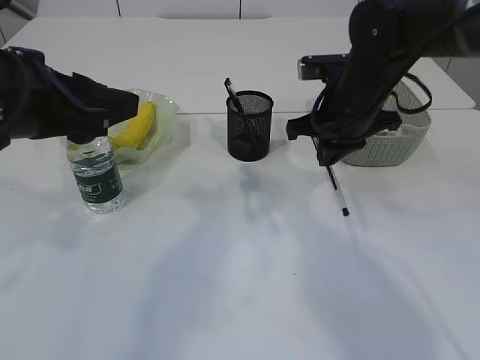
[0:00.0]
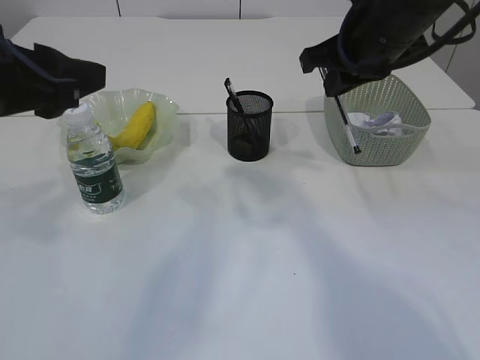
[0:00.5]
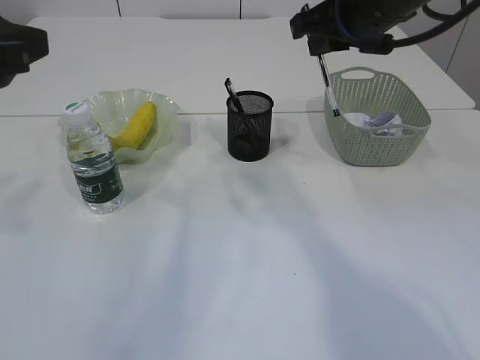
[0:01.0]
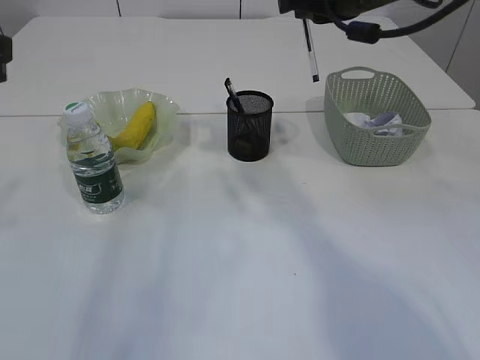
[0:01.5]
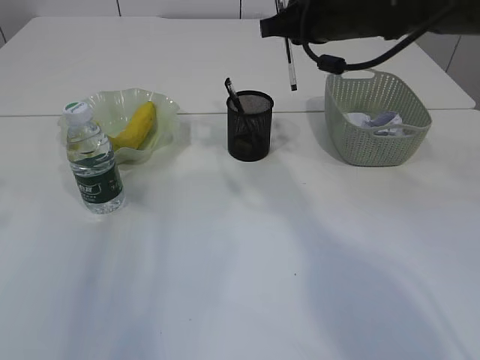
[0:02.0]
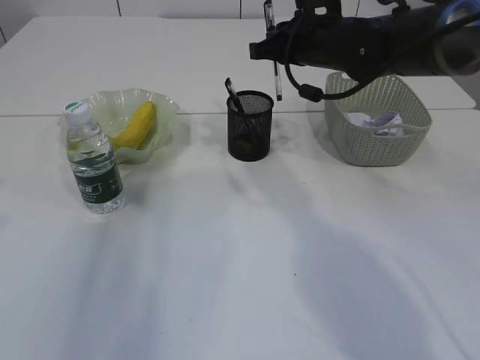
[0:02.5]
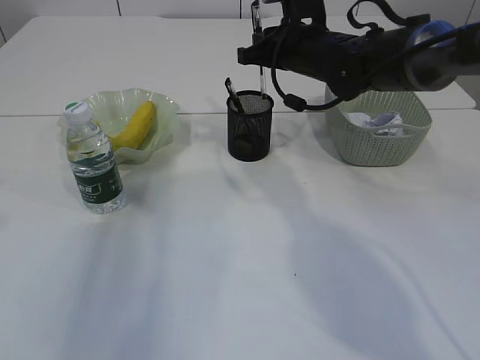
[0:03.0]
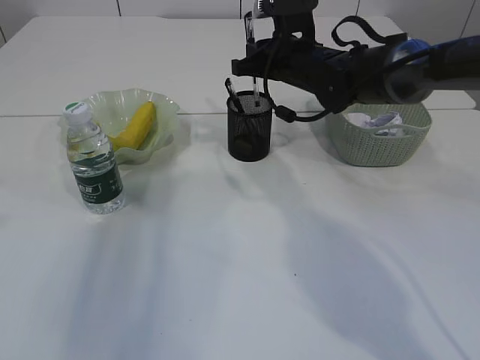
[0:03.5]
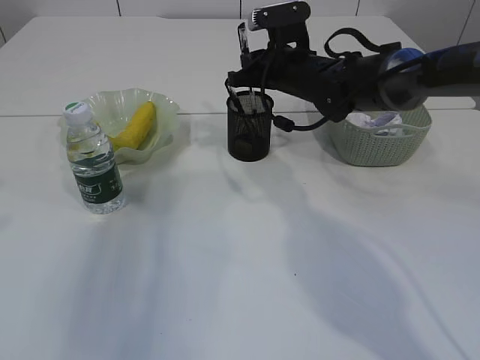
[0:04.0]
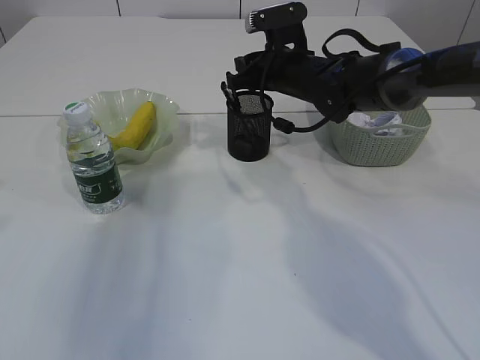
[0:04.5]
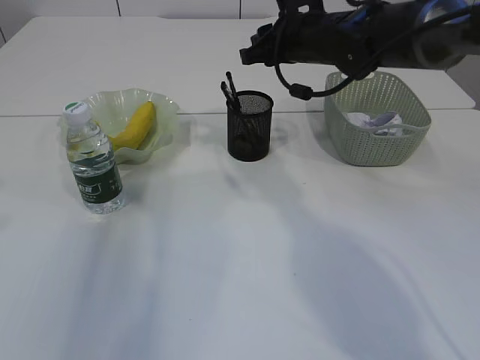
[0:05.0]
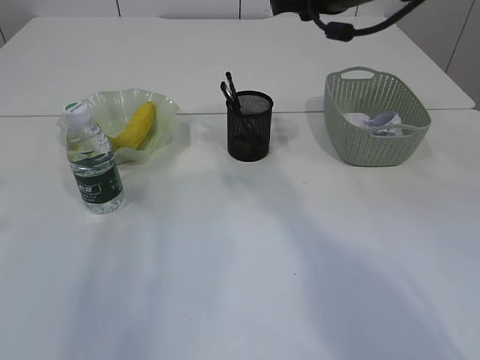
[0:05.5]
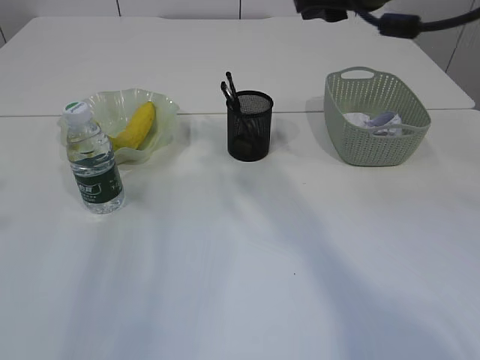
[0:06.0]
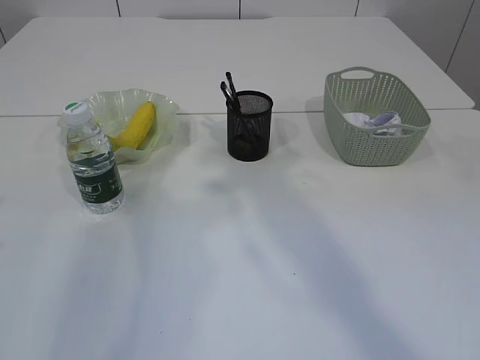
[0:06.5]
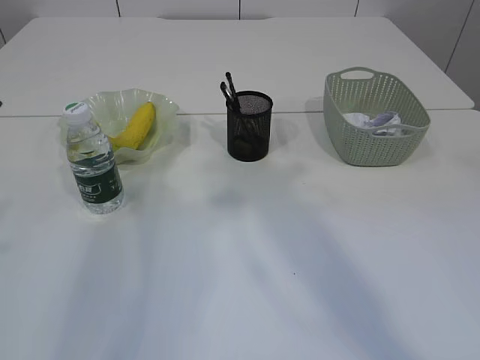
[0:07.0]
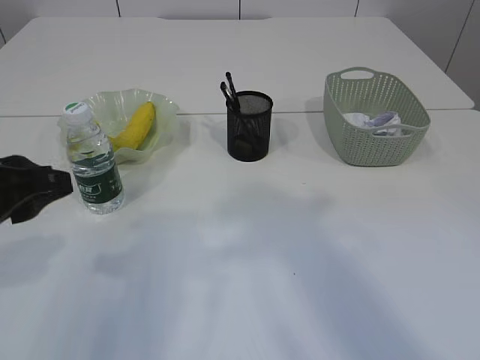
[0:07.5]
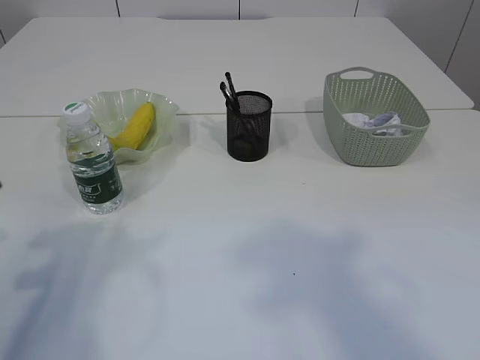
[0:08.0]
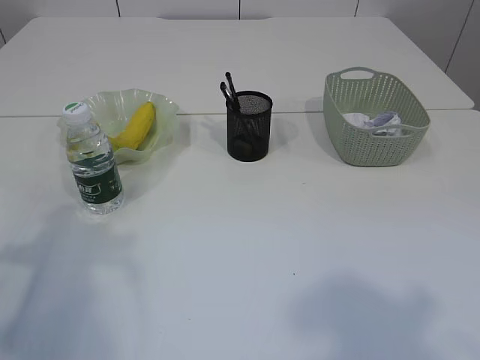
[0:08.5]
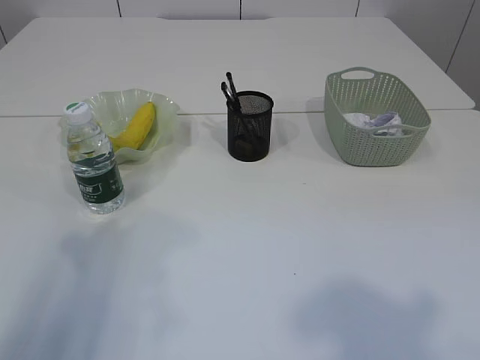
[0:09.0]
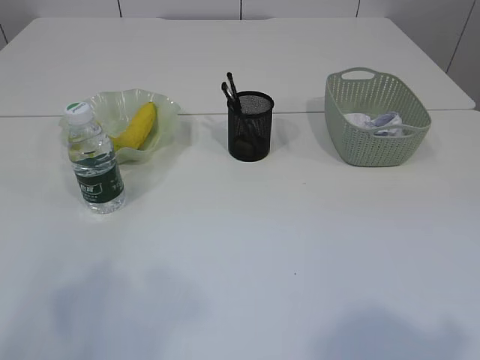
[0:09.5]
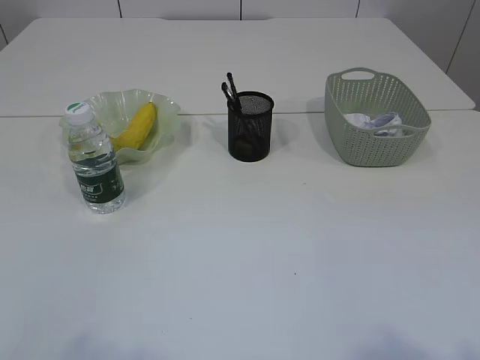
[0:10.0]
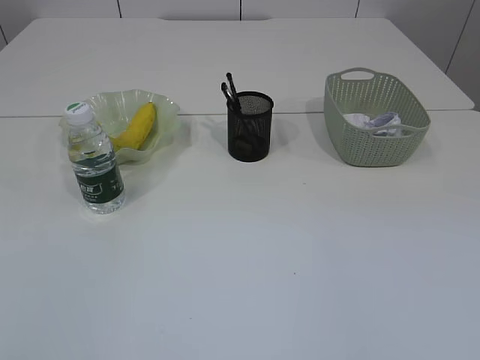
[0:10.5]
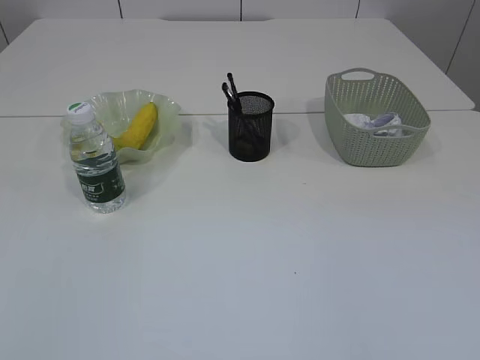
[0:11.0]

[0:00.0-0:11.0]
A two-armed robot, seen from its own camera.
Step, 0:00.0 to 0:05.0: Place the pen into the pen holder.
0:00.0 to 0:02.0: The right gripper moves upward, some 10 cm; the left gripper heads to the left, covering some 5 cm.
0:02.0 to 0:03.5: The right gripper shifts approximately 10 cm downward and forward.
0:03.5 to 0:05.5: The right gripper heads upward and backward, covering about 15 cm, and opens up.
0:05.5 to 0:07.5: The left gripper shifts some 10 cm downward. Meanwhile the right gripper heads backward and upward, covering approximately 30 cm.
0:07.5 to 0:09.0: The left gripper is displaced to the left and upward by approximately 10 cm.
0:09.0 to 0:11.0: The left gripper goes about 20 cm backward.

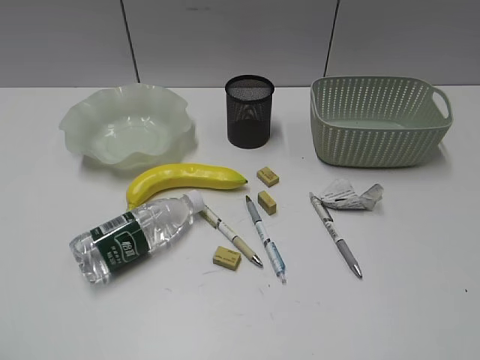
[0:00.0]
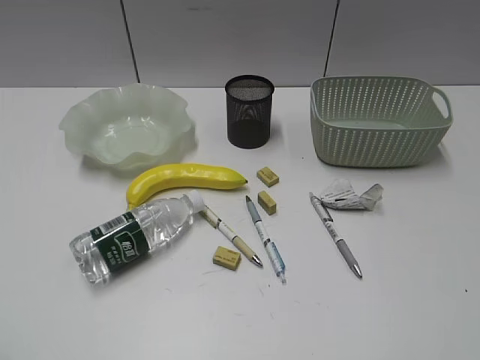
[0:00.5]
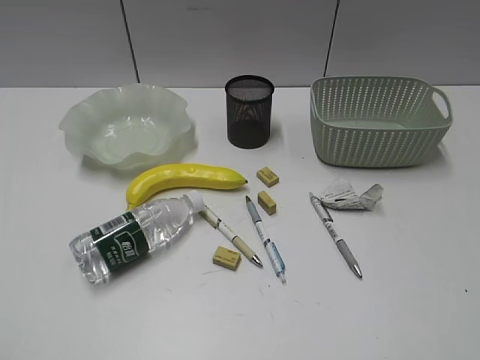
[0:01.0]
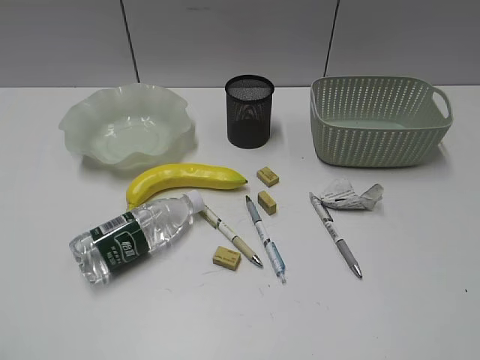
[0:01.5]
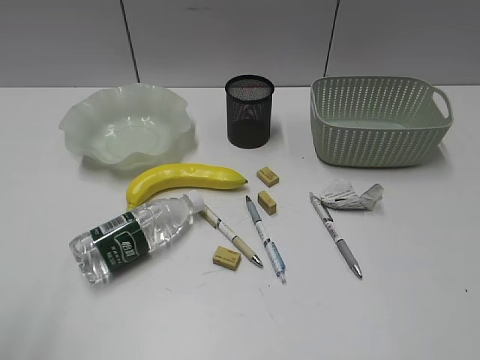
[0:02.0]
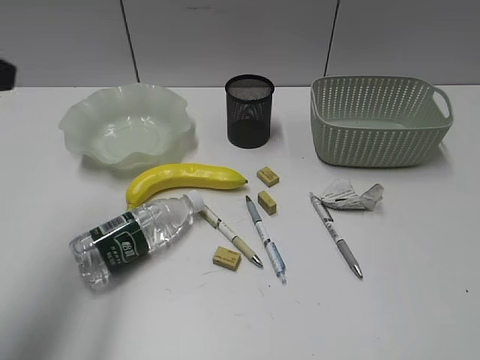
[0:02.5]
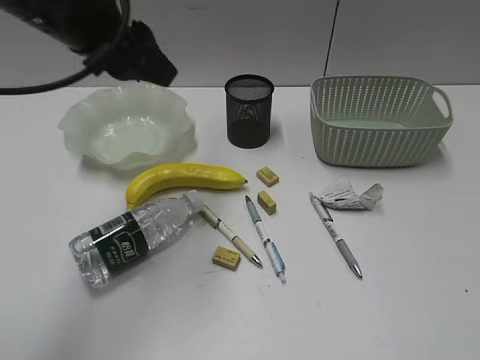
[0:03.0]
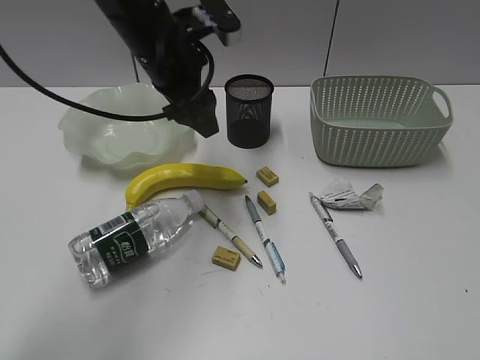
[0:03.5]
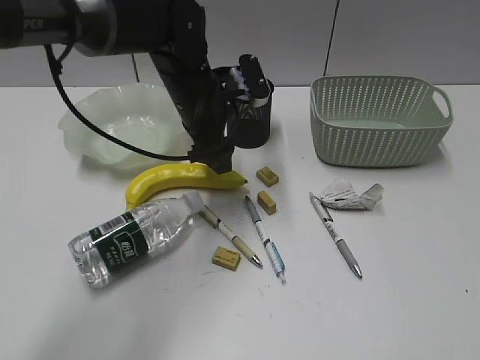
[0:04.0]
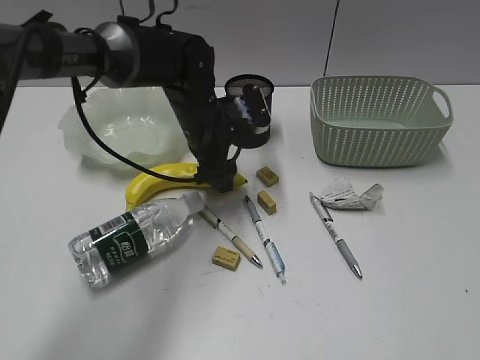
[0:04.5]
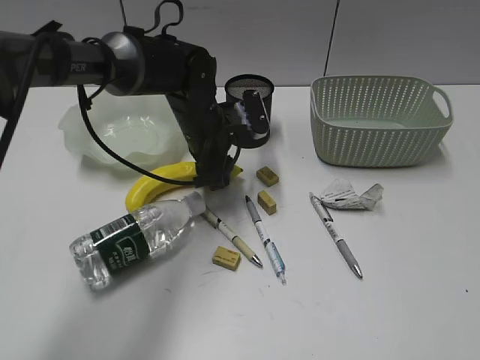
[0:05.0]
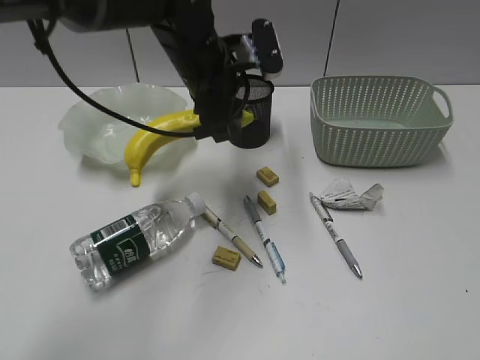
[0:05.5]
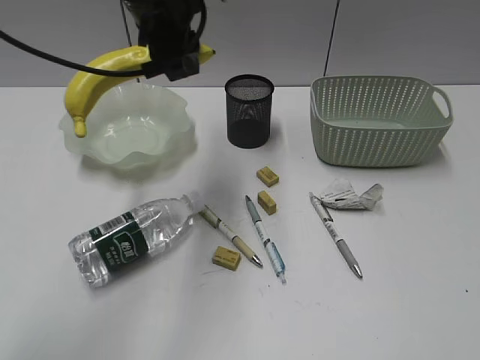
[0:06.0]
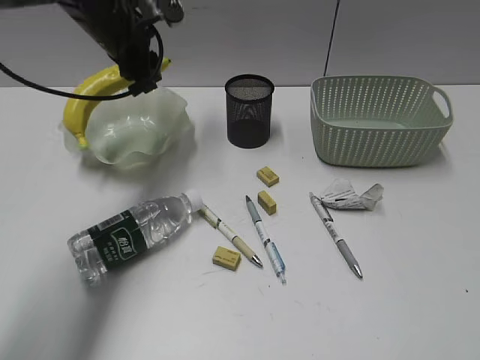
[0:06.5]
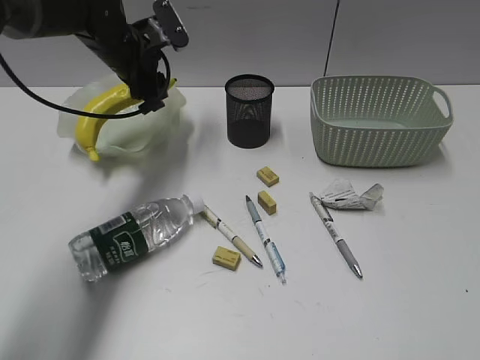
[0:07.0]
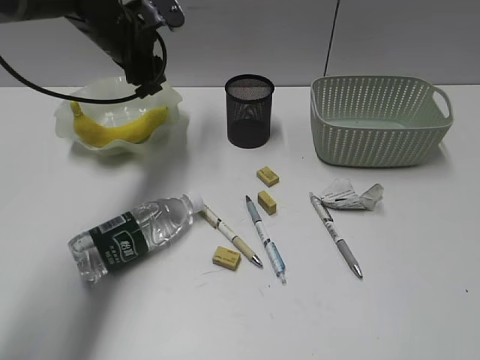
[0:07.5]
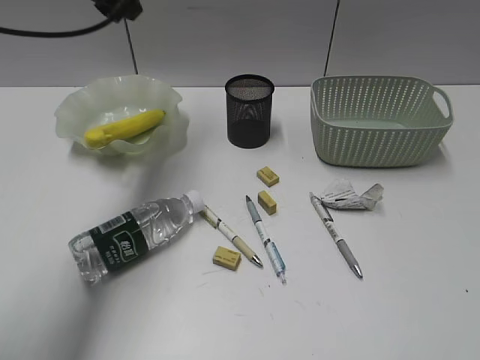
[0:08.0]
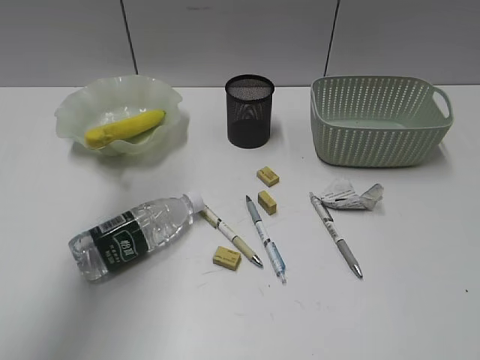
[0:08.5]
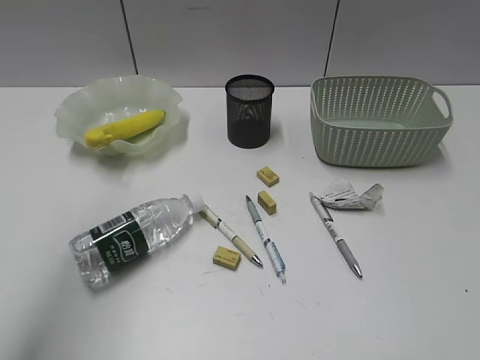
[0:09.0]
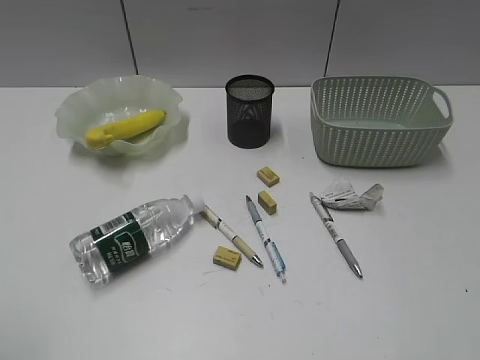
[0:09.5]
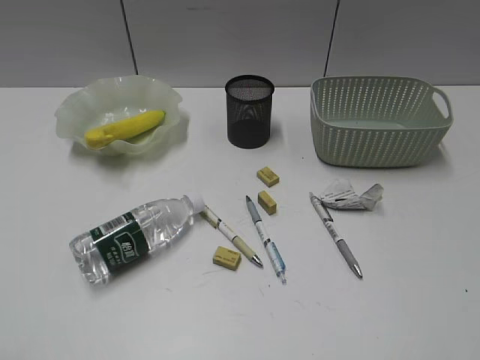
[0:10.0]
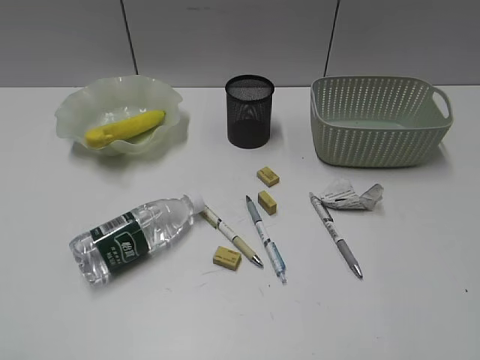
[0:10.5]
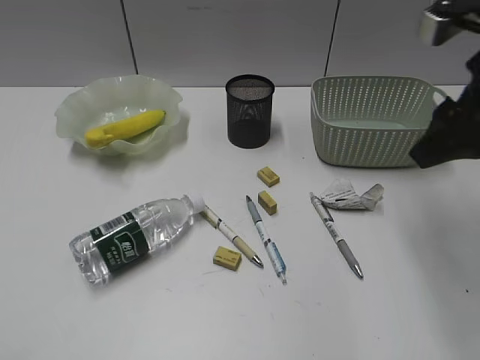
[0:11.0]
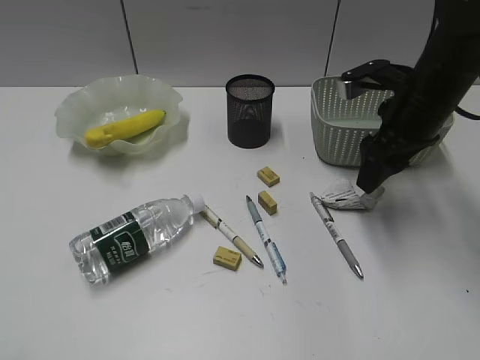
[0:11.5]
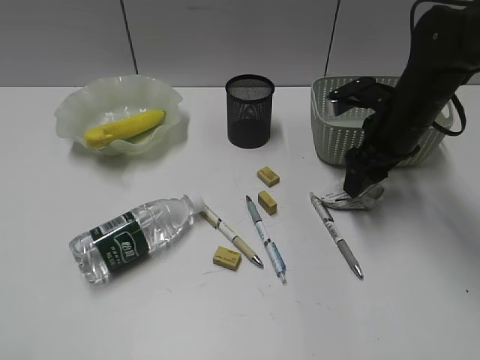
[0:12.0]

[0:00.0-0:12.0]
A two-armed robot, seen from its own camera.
Step, 0:02.0 to 0:05.0: Grasp the banana with left gripper.
Step, 0:05.5 to 0:07.0: Place the banana in the plate with left gripper.
0:02.0 to 0:04.0: The left gripper shifts about 40 cm forward and to the right, and opens its fingers.
0:04.0 to 0:06.0: The left gripper travels upward by about 15 cm, and closes its fingers.
0:06.0 to 0:08.0: The left gripper heads to the left and forward, covering about 10 cm, and travels downward and back again, some 10 cm each way.
0:08.0 to 0:10.0: The left gripper heads backward, covering some 40 cm.
0:10.0 to 0:12.0: The right gripper goes approximately 40 cm forward.

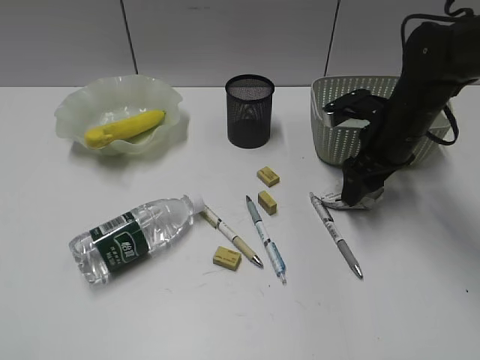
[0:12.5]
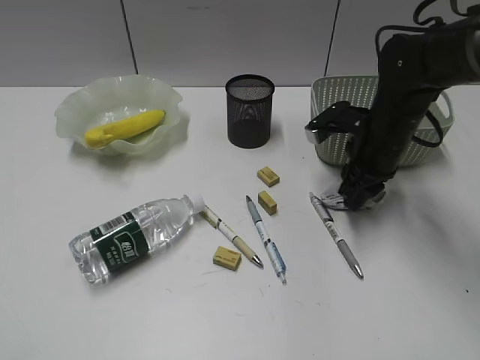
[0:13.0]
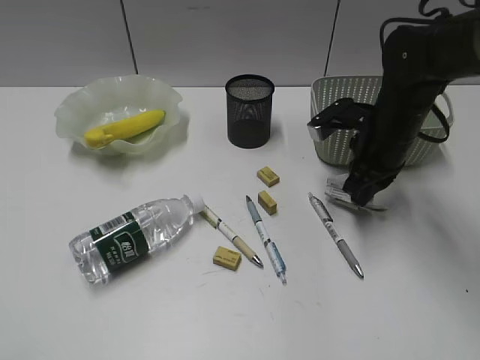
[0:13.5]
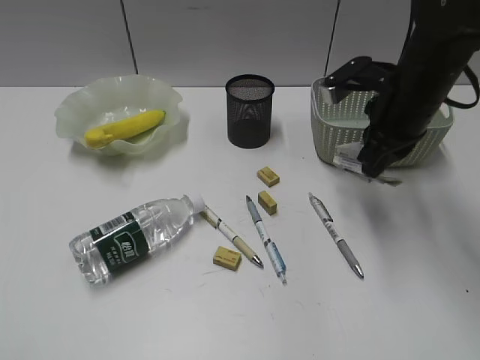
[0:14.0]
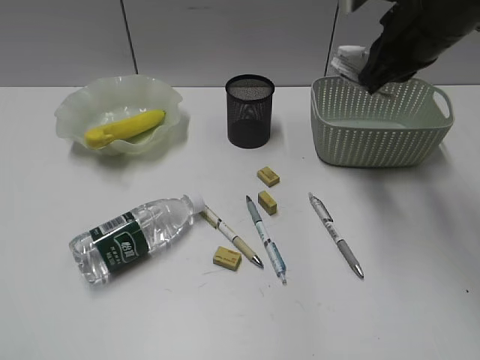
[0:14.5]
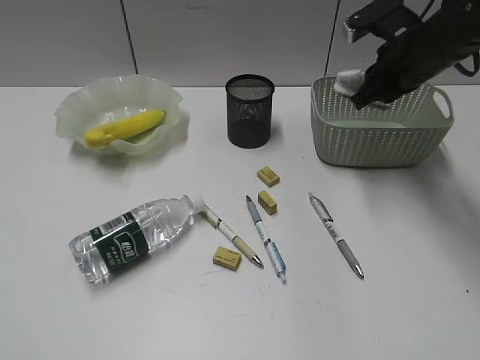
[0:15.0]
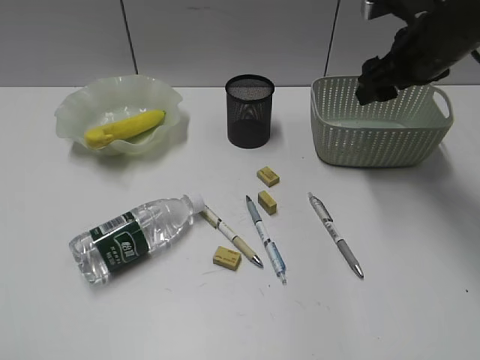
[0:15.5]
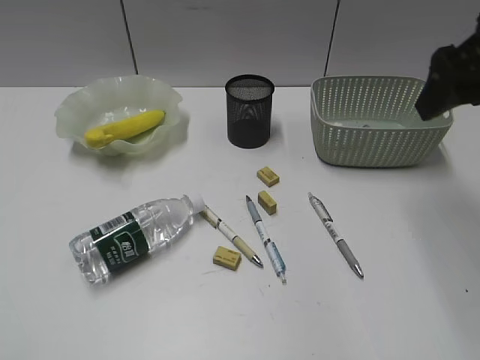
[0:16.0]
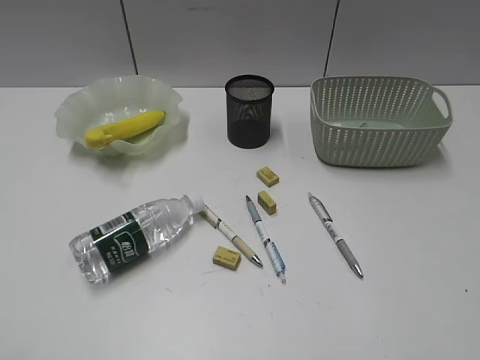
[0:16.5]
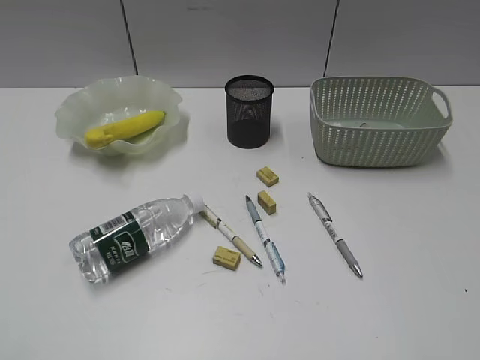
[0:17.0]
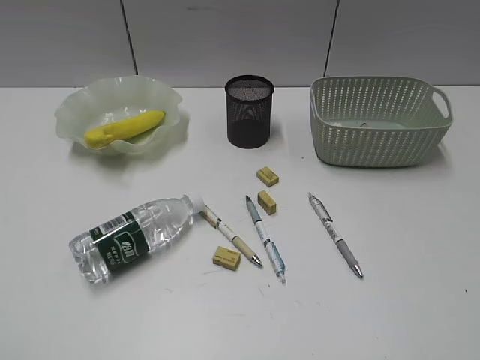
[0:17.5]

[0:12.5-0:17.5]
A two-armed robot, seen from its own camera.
Step, 0:13.5 to 0:15.0: Place the waste paper in the basket with right gripper.
0:12.5 to 0:15.0: The right gripper moves upward, about 10 cm, and closes its fingers.
0:15.0 to 0:17.5: The right gripper shifts about 40 cm backward, and opens up.
